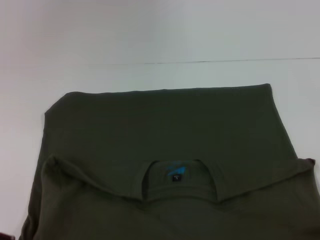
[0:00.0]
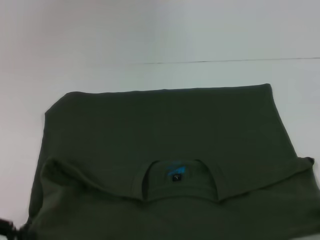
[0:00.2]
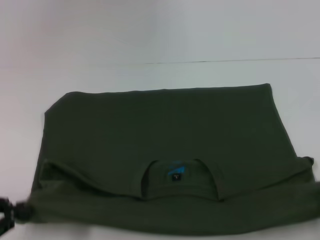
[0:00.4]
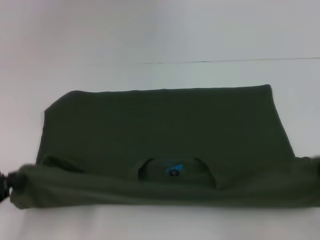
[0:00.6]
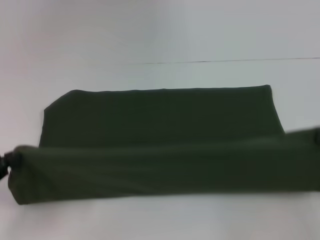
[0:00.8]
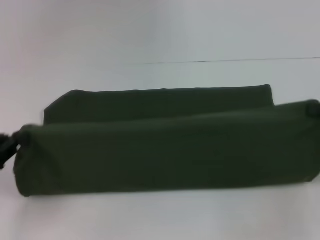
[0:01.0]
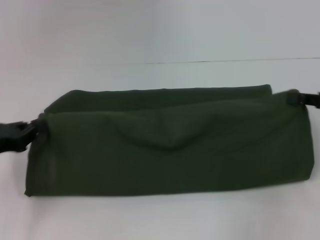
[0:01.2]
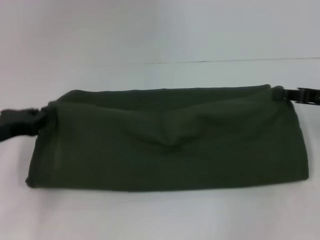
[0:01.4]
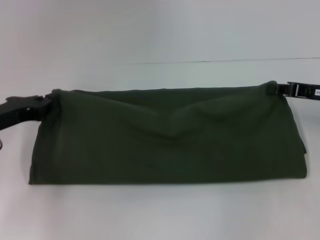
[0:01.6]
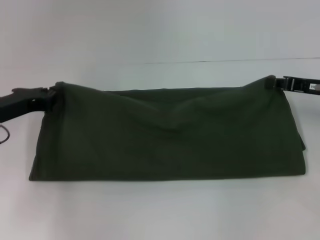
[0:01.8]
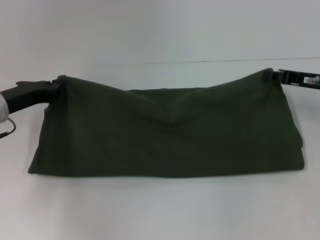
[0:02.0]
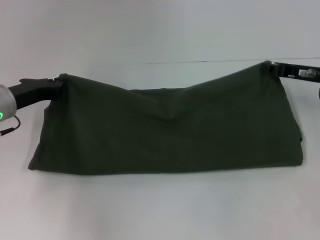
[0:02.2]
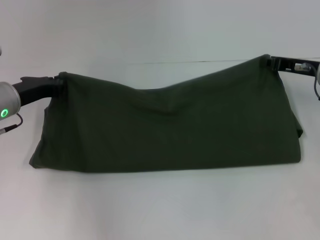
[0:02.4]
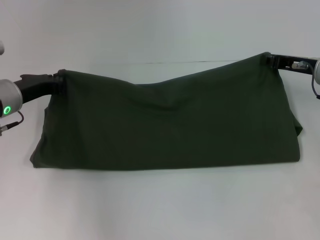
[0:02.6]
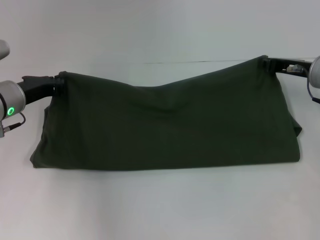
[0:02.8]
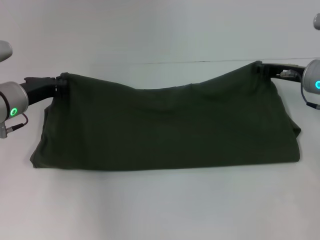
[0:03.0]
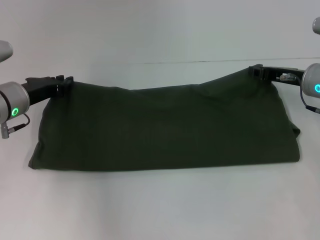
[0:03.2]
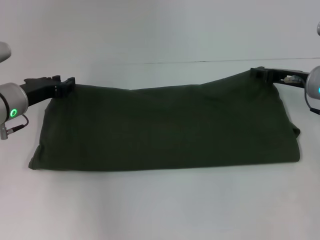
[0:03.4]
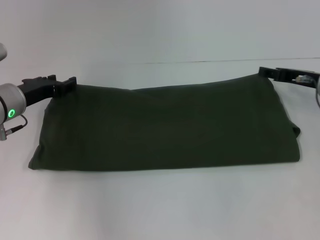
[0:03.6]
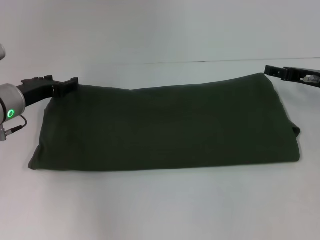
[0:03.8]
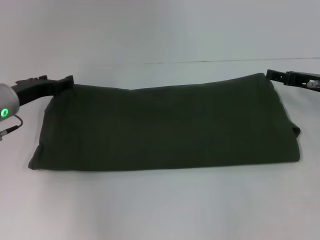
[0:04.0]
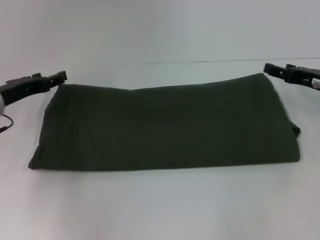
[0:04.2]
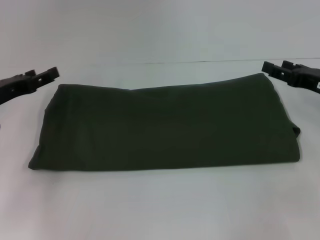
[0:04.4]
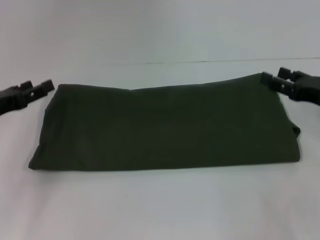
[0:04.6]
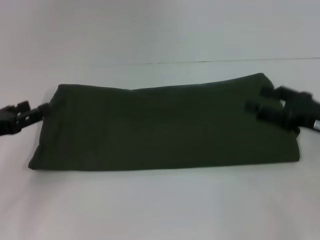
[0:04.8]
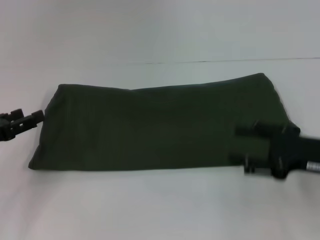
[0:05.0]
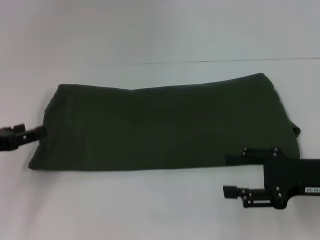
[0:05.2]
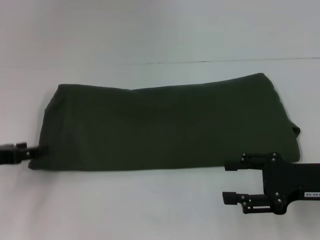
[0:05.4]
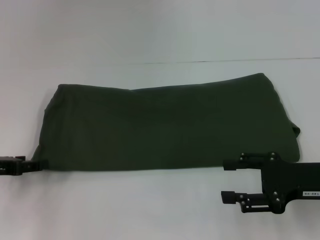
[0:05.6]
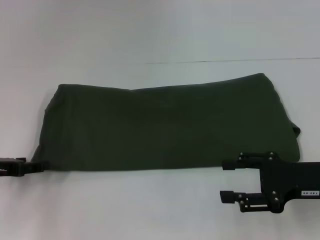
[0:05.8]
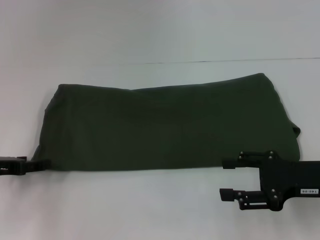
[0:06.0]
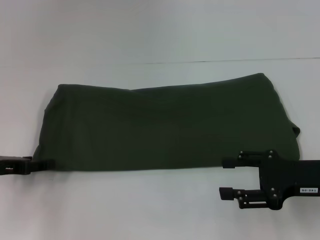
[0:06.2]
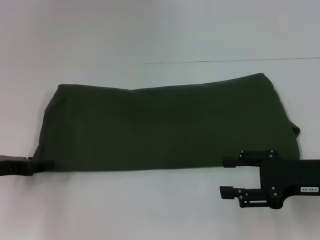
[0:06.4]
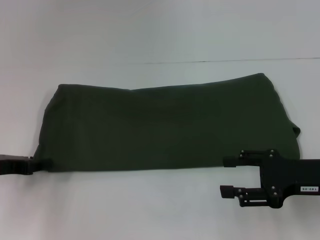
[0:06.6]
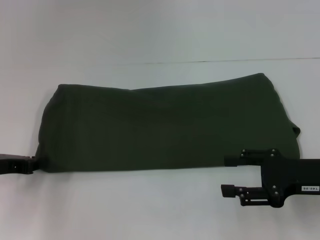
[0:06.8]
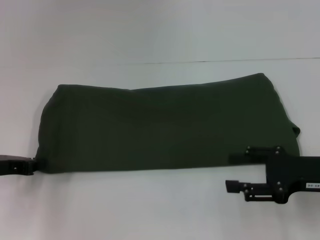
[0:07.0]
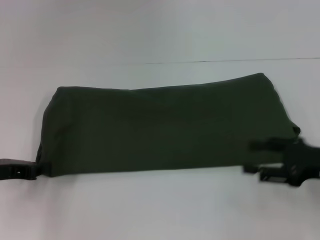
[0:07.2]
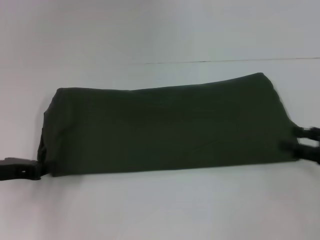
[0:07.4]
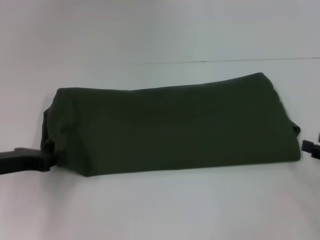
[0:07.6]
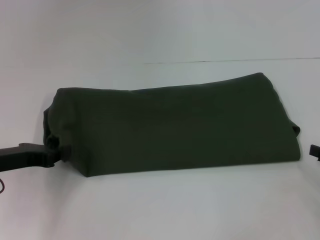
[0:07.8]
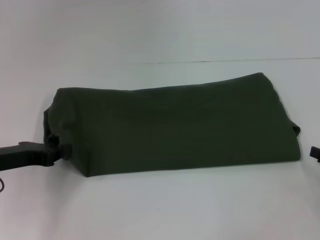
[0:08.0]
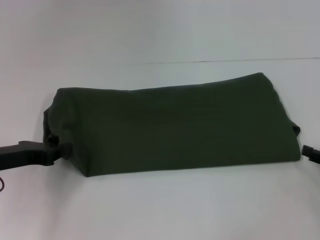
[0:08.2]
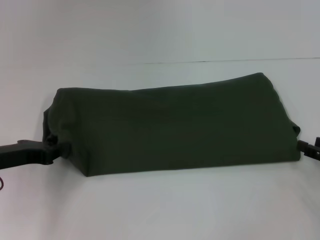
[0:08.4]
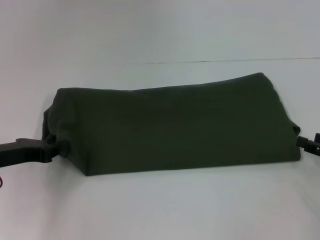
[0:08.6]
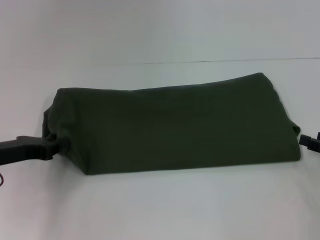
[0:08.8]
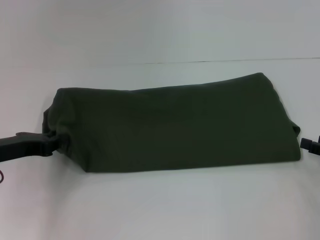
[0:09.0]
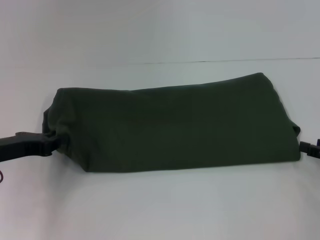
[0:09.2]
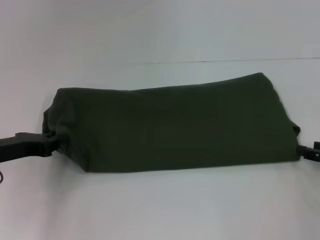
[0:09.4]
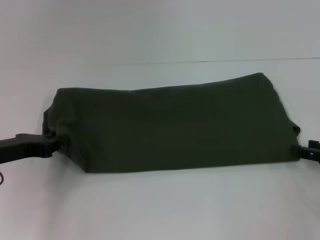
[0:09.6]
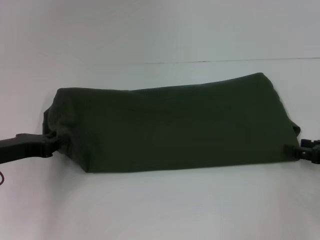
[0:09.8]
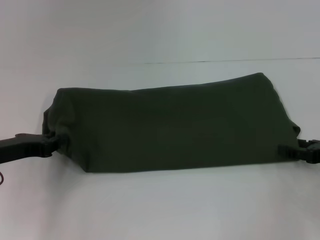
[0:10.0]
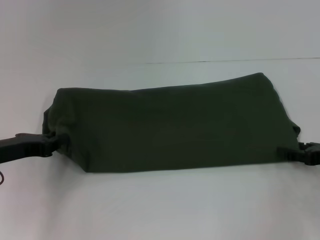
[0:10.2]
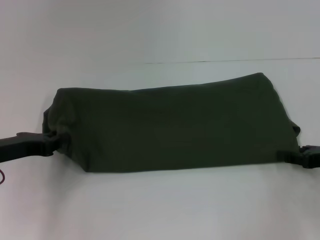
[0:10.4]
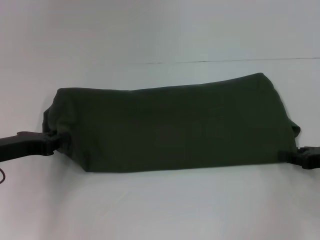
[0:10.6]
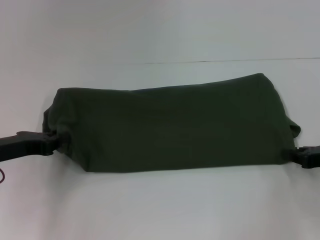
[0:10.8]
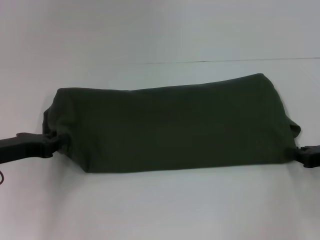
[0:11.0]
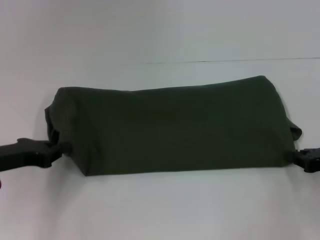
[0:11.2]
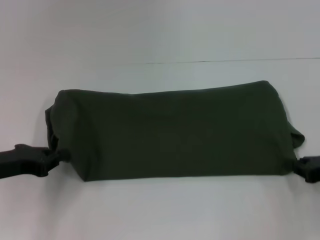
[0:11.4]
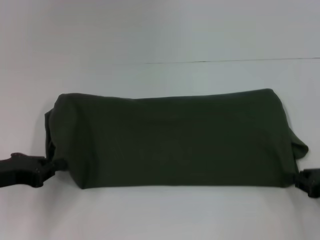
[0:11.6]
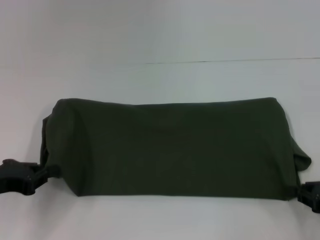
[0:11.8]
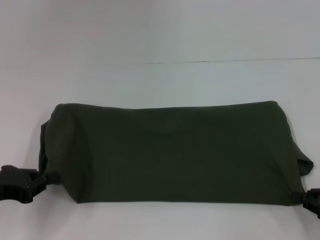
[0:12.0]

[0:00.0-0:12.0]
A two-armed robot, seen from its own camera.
Step, 0:00.2 to 0:03.8: Fold the clothes with your right hand.
0:00.0 to 0:01.6: The left gripper moves forward, roughly 15 cm, while the right gripper heads forward, covering roughly 25 cm.
0:01.6 to 0:03.0: The grippers both shift forward by roughly 5 cm.
0:03.0 to 0:04.4: The left gripper is displaced to the left by some 5 cm, and opens up, while the right gripper goes approximately 5 cm backward, and opens up.
0:04.4 to 0:06.0: The left gripper travels backward by about 5 cm. Meanwhile the right gripper goes roughly 10 cm backward.
0:06.0 to 0:07.6: The right gripper shifts about 10 cm to the right. The left gripper closes.
0:07.6 to 0:10.4: The grippers move only a little.
0:10.4 to 0:12.0: The grippers both shift backward by some 5 cm. The right gripper closes its fingers.

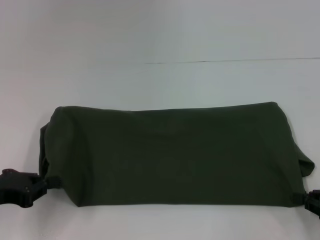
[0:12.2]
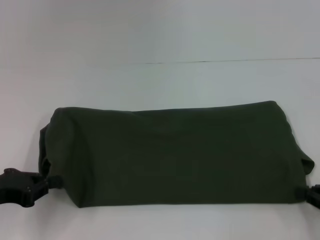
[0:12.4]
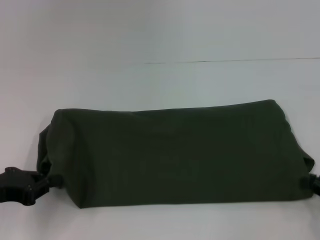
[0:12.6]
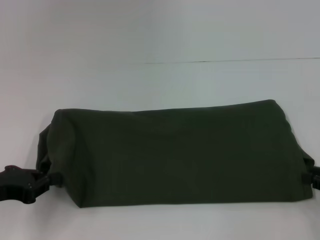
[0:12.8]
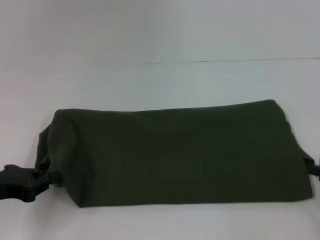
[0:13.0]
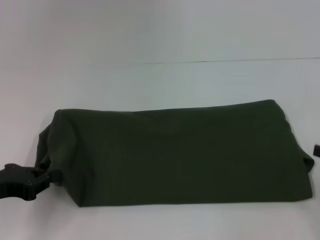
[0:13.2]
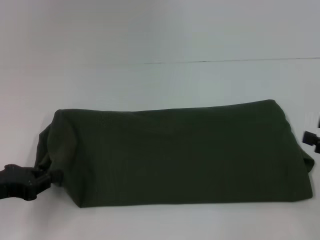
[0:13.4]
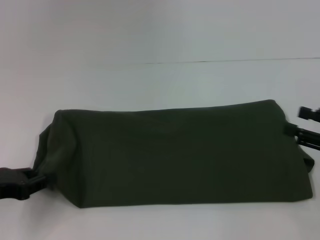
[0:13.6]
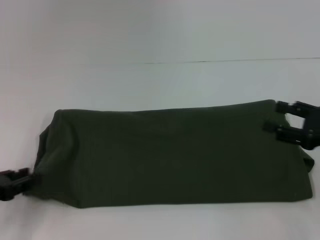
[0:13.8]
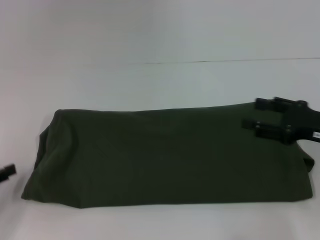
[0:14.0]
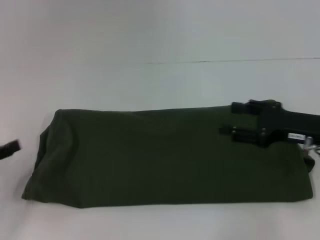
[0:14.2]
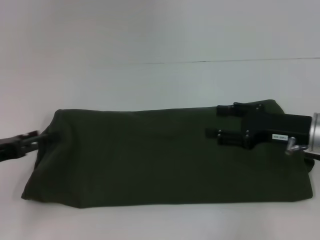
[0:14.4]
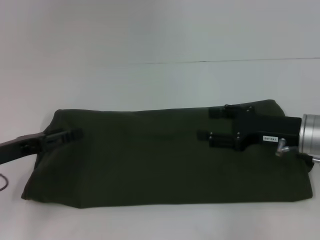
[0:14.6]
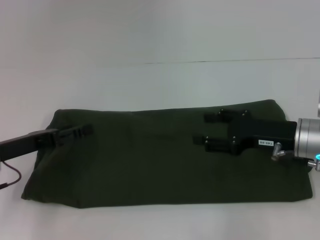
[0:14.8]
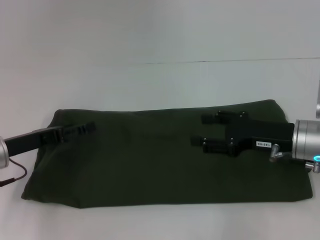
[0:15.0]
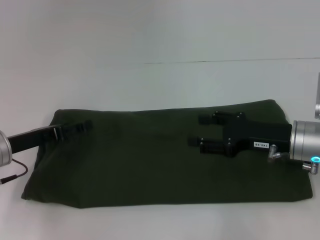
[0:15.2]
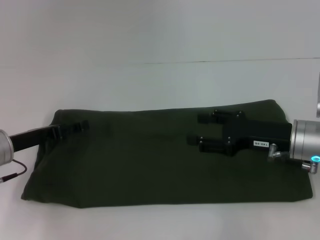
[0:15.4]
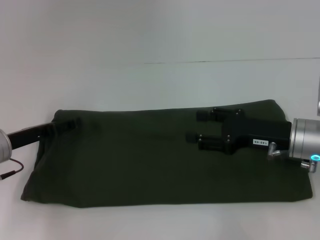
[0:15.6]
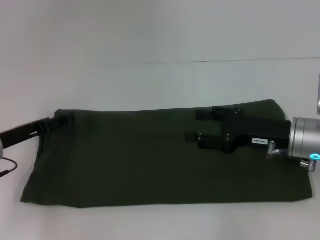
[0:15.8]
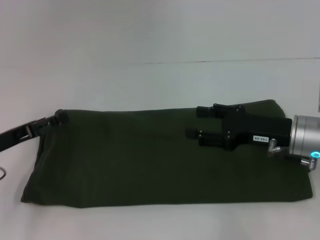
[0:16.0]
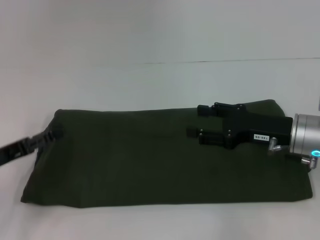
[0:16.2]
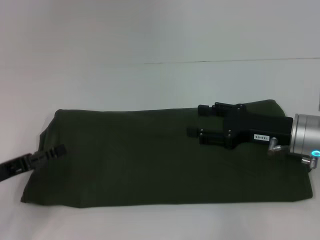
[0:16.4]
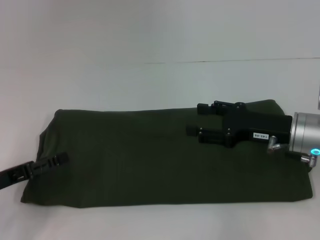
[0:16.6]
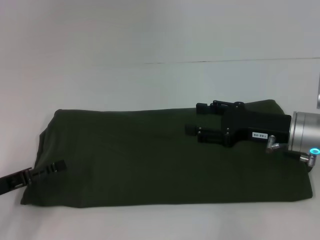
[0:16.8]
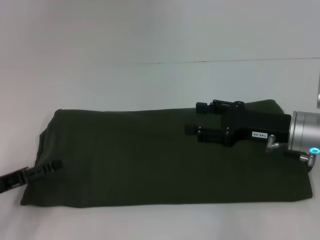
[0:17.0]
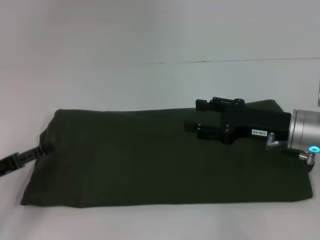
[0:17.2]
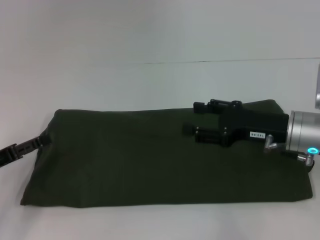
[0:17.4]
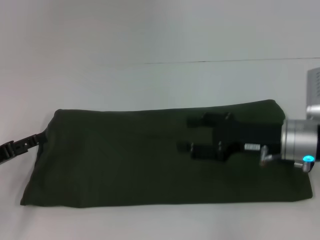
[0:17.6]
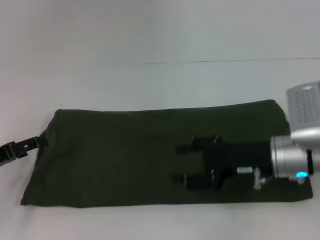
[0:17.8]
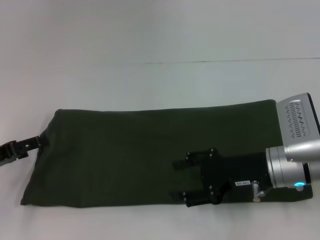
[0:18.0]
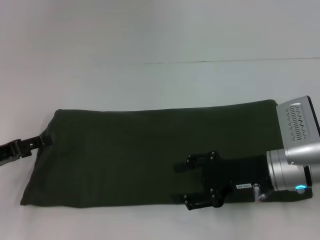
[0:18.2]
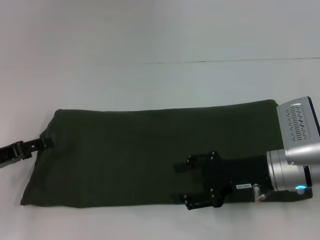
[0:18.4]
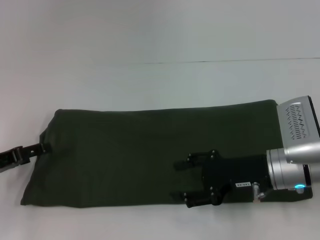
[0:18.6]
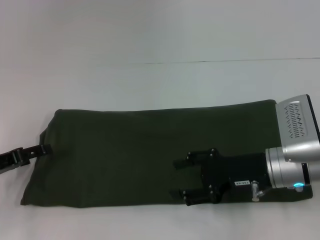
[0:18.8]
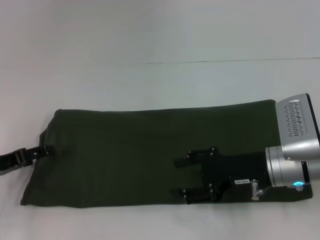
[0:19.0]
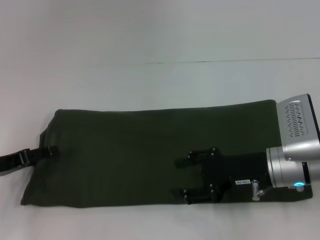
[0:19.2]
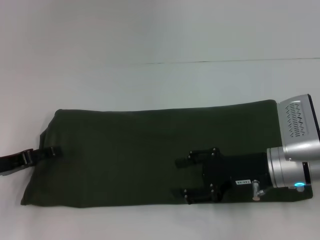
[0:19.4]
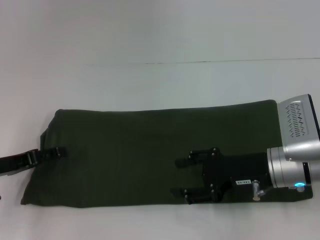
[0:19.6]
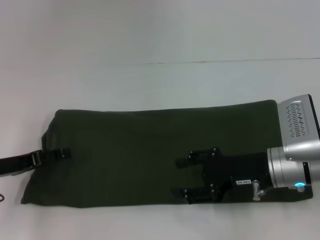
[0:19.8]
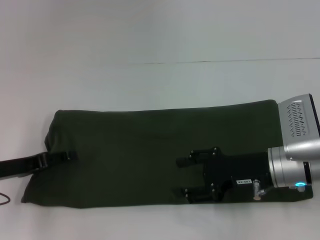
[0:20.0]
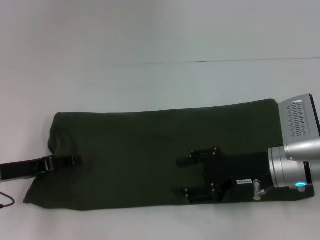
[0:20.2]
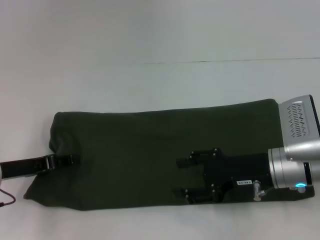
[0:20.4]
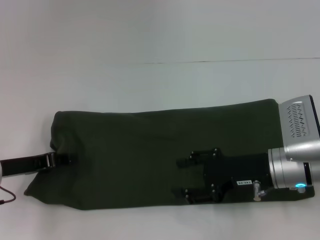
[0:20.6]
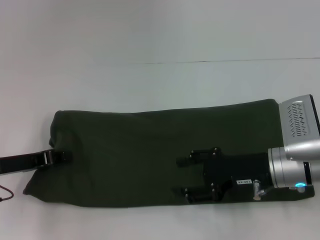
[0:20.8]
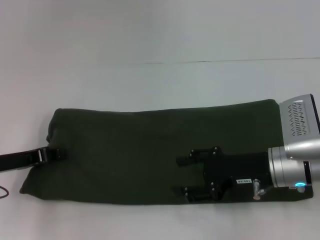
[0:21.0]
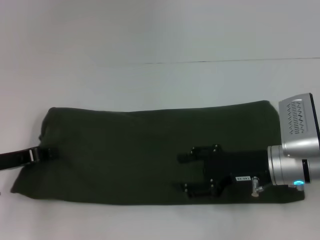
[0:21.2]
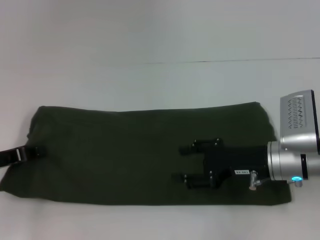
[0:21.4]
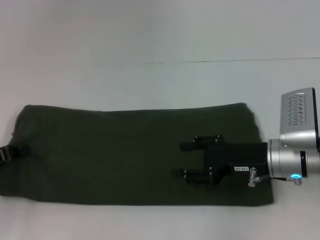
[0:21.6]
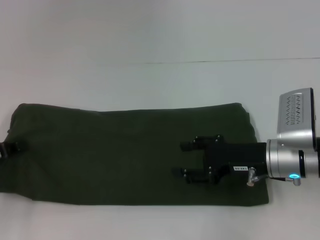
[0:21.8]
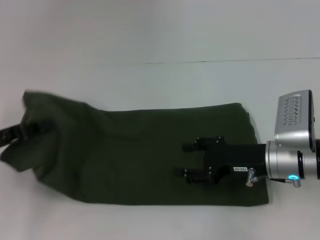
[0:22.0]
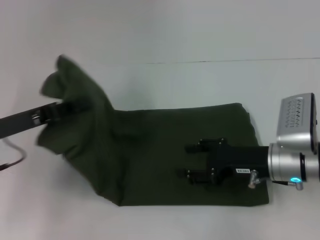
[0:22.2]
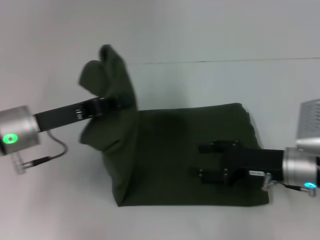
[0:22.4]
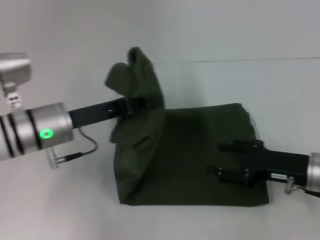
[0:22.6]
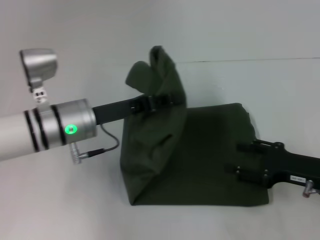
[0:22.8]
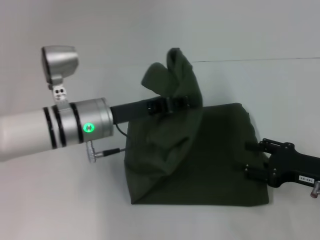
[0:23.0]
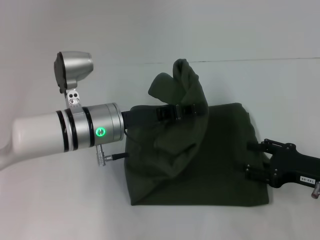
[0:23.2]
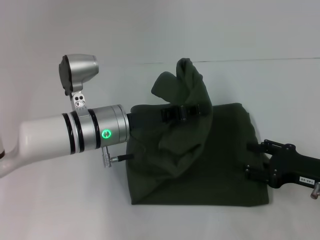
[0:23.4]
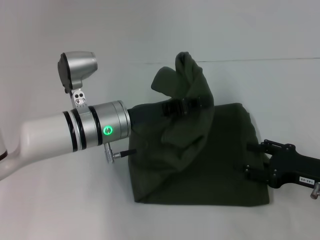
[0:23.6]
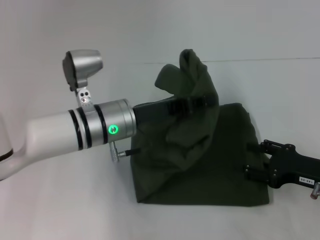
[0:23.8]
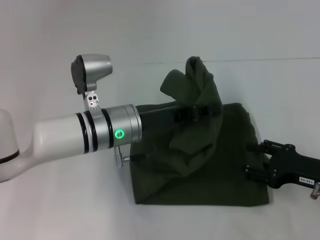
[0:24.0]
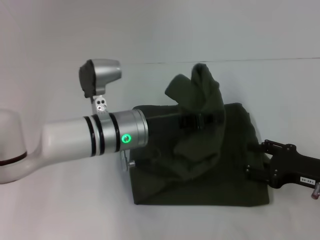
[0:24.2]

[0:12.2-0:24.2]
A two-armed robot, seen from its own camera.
0:12.2 to 0:13.8: The right gripper travels upward and forward by some 10 cm, and opens.
0:13.8 to 0:15.2: The right gripper goes roughly 10 cm to the left. The left gripper is displaced forward and to the right by approximately 10 cm, and opens its fingers.
0:15.2 to 0:16.6: The left gripper is displaced backward by roughly 5 cm.
0:18.2 to 0:19.8: The grippers stay close to where they were, moving slightly.
0:19.8 to 0:21.2: The left gripper closes its fingers.
0:21.2 to 0:22.6: The right gripper goes approximately 5 cm to the right. Meanwhile the left gripper heads to the right, covering some 10 cm.
0:22.6 to 0:24.2: The left gripper moves to the right, approximately 10 cm.
